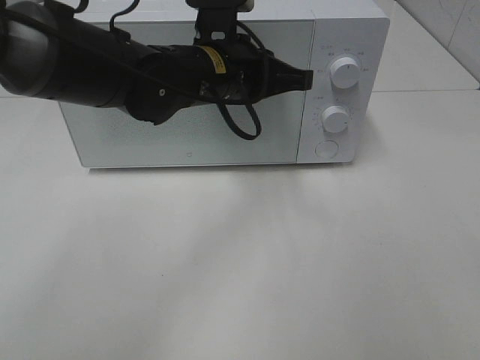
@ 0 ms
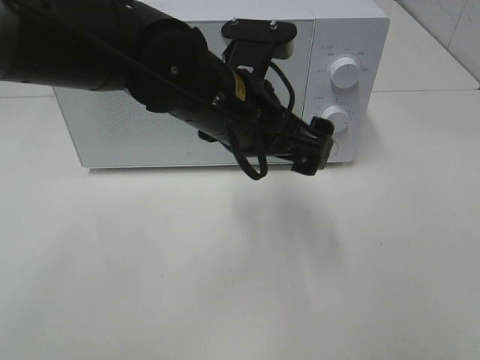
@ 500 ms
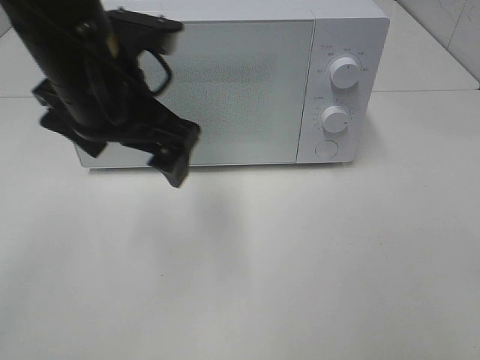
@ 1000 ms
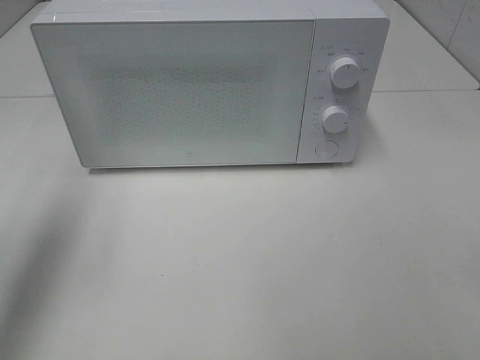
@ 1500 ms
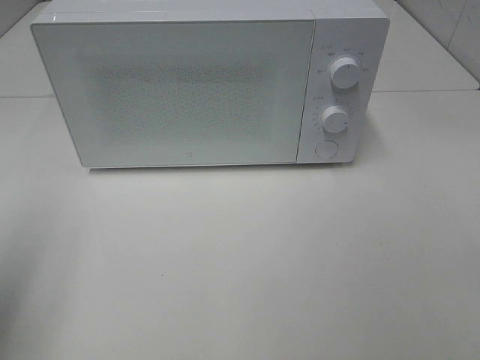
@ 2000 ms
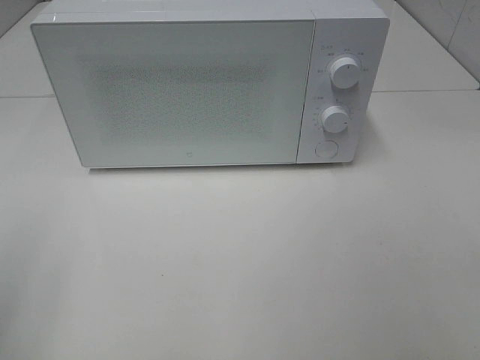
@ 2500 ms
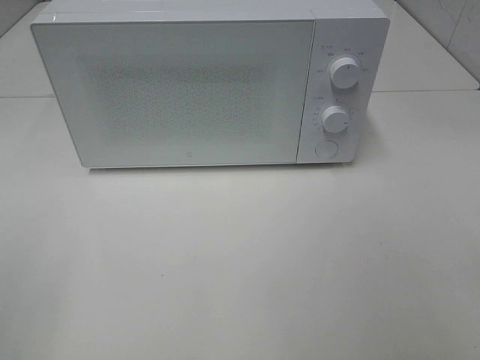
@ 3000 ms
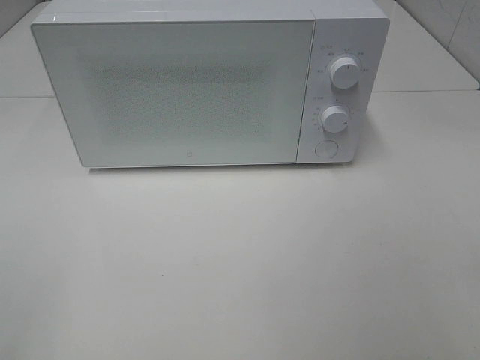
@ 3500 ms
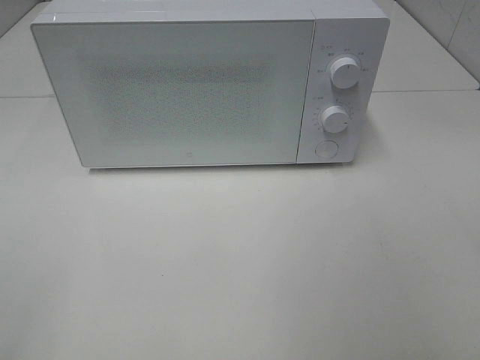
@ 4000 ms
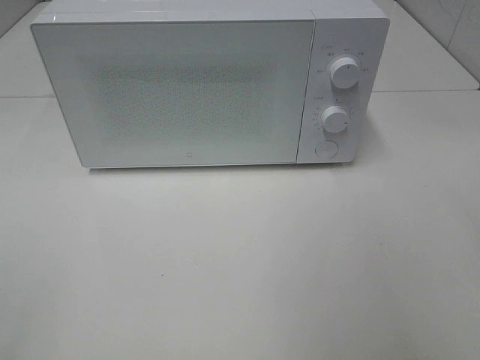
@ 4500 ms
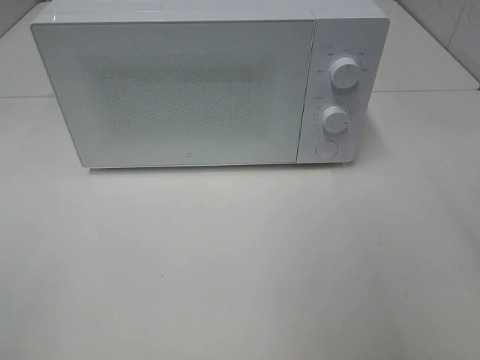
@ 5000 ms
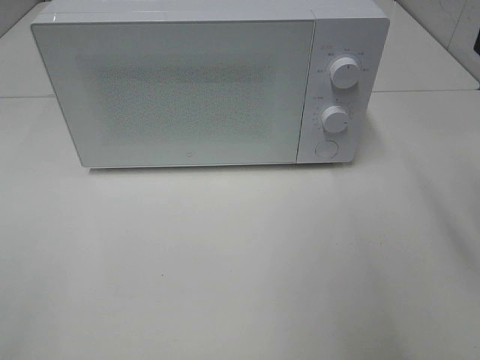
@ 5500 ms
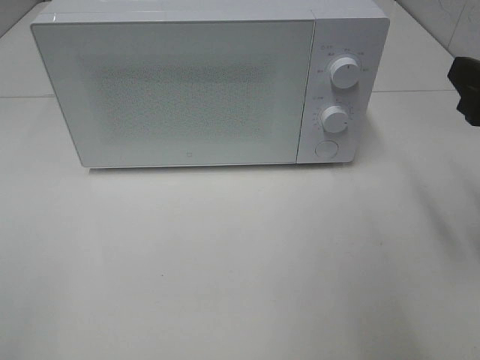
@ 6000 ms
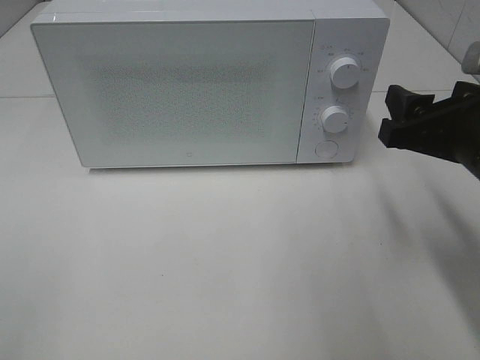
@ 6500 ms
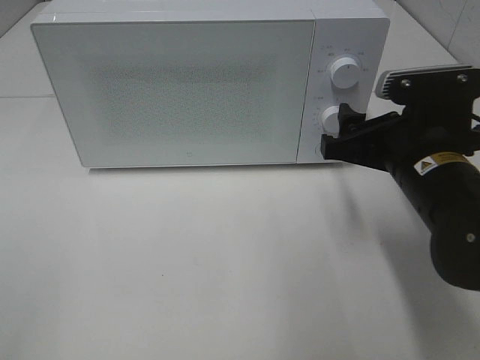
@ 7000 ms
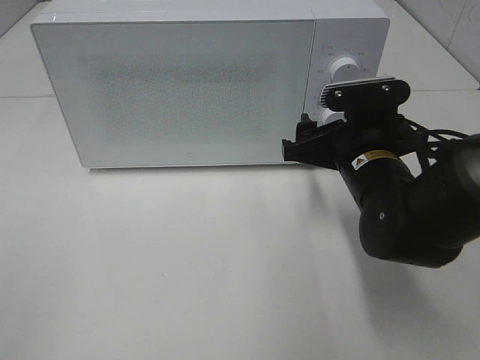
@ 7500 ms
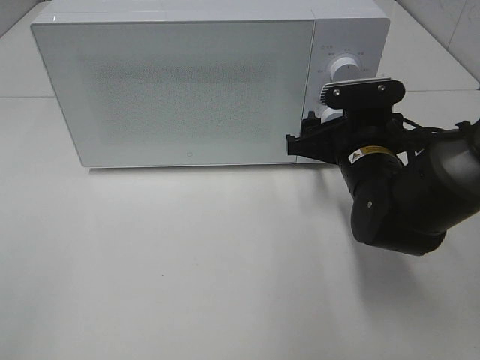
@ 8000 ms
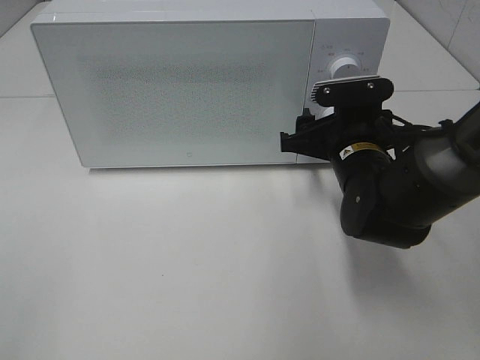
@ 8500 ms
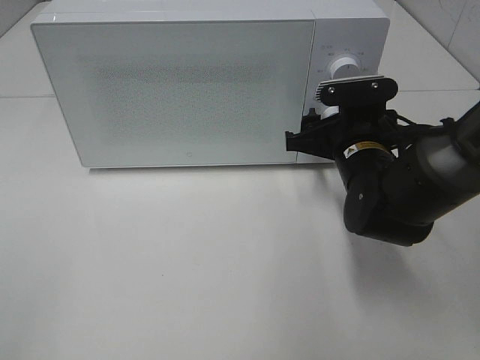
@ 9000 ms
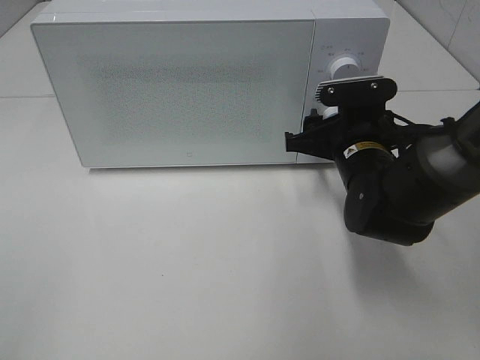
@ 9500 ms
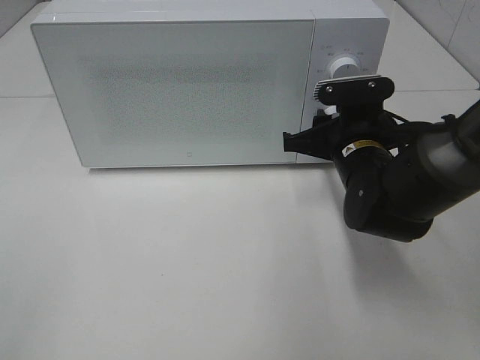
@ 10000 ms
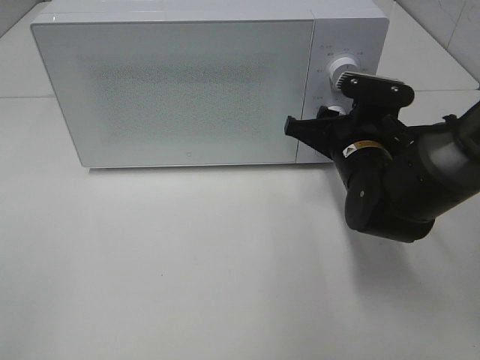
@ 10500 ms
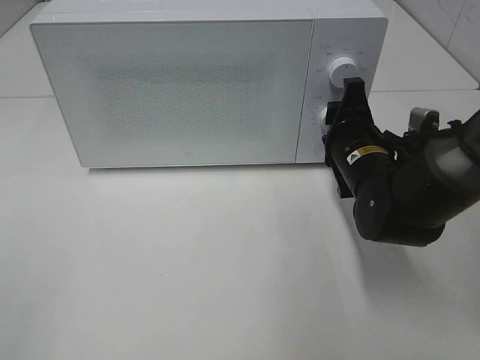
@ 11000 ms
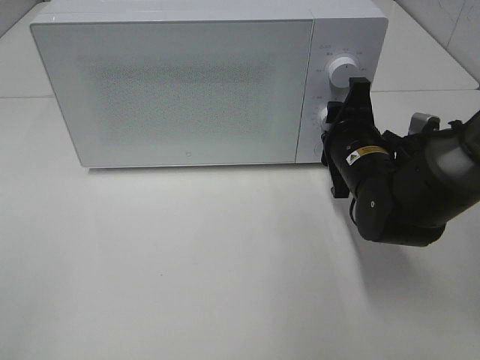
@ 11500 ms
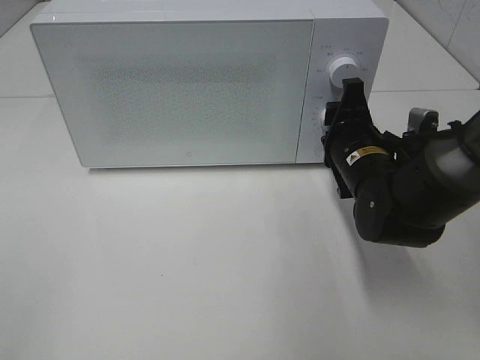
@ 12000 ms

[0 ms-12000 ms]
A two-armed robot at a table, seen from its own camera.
Task of the whole recording: Heat the burger.
0 ms to 2000 ms: The left gripper is displaced to the left and backward by about 35 cm, and opens.
2000 ms to 4000 ms: The left gripper heads backward, covering about 15 cm.
4000 ms to 6000 ms: The right gripper moves forward and downward, some 20 cm.
6000 ms to 8000 ms: The right gripper is displaced downward, to the left and forward by approximately 20 cm.
8000 ms to 10000 ms: The right gripper closes its fingers.

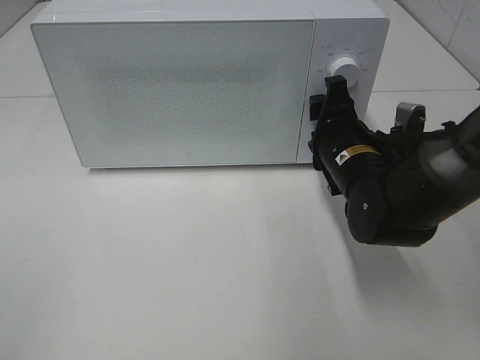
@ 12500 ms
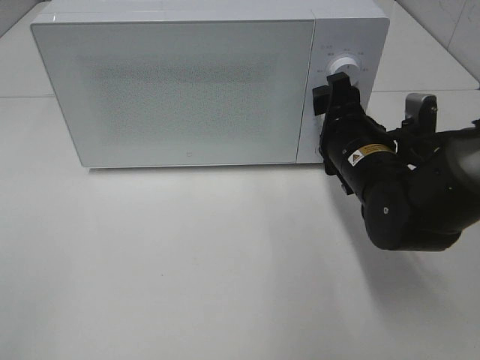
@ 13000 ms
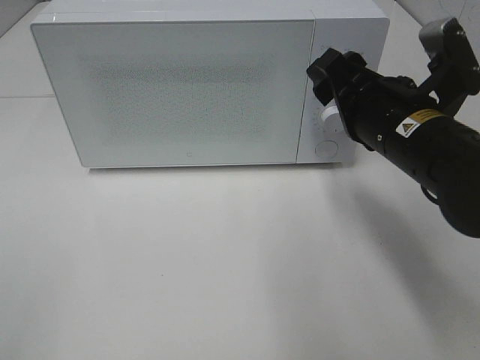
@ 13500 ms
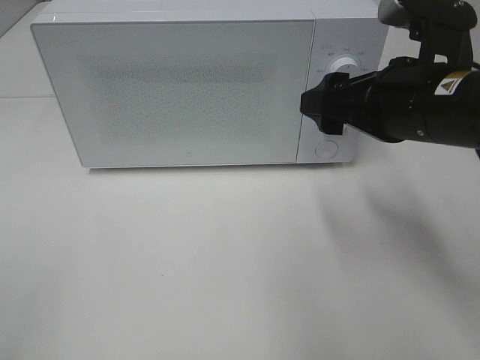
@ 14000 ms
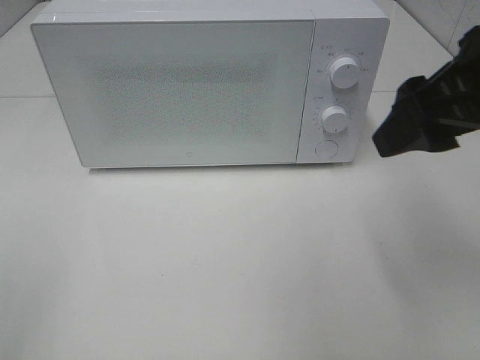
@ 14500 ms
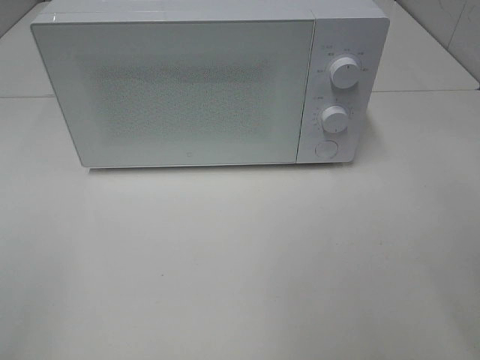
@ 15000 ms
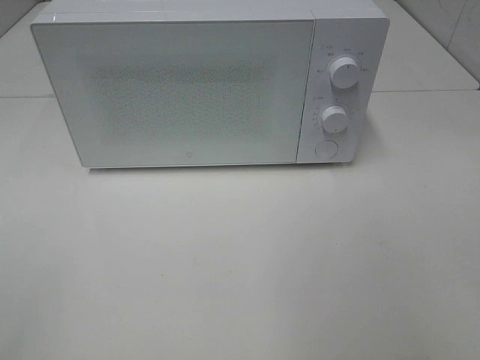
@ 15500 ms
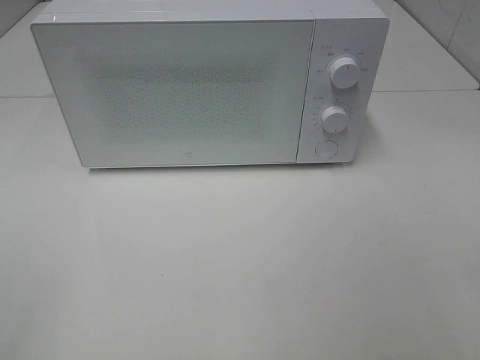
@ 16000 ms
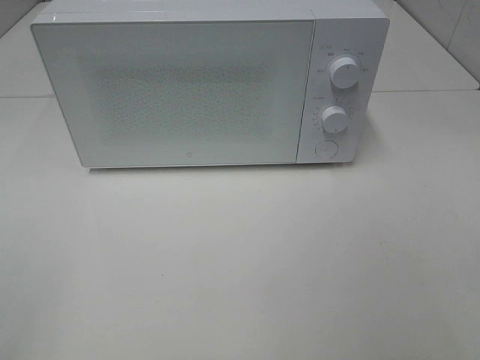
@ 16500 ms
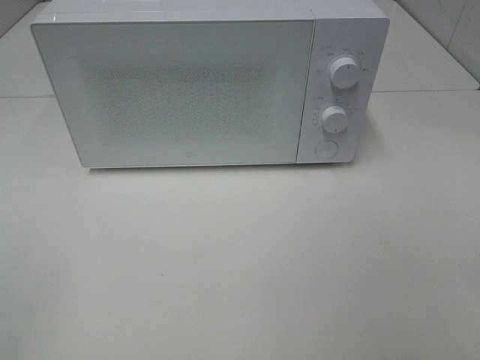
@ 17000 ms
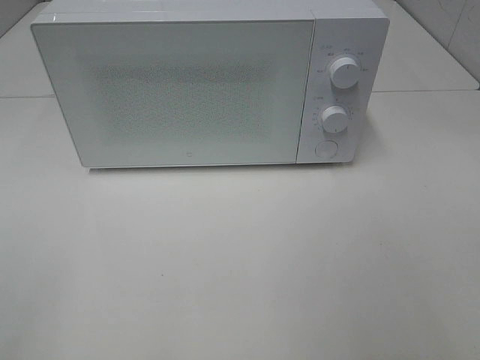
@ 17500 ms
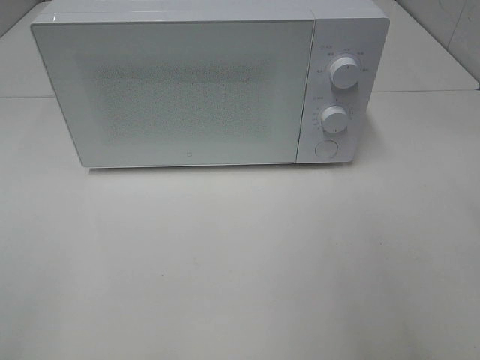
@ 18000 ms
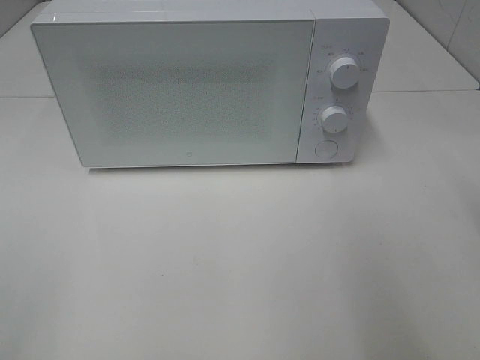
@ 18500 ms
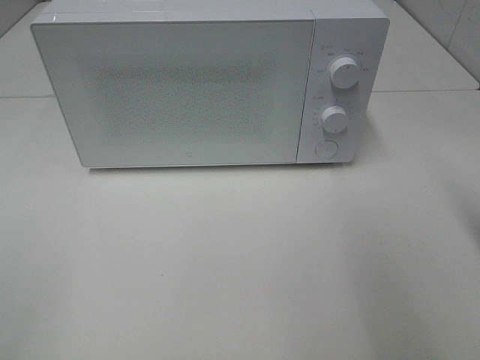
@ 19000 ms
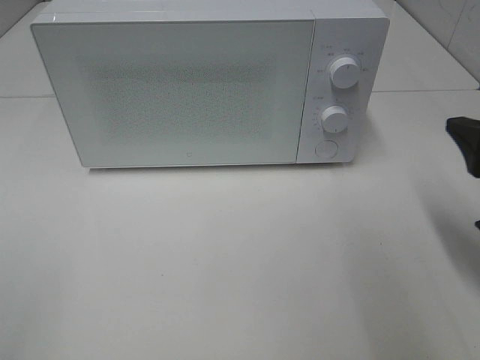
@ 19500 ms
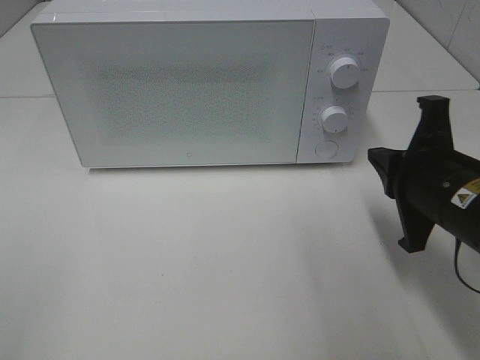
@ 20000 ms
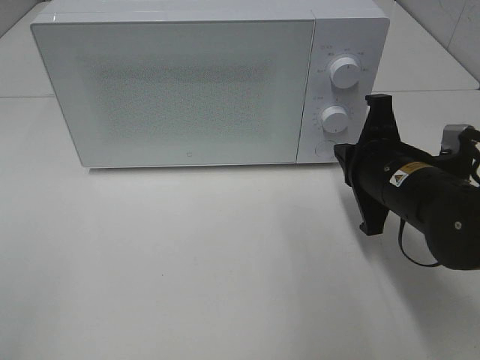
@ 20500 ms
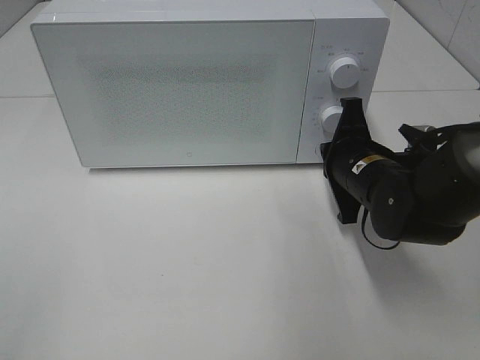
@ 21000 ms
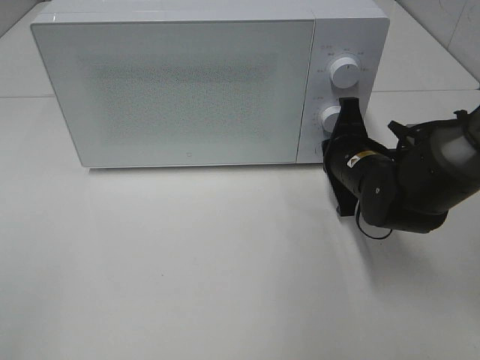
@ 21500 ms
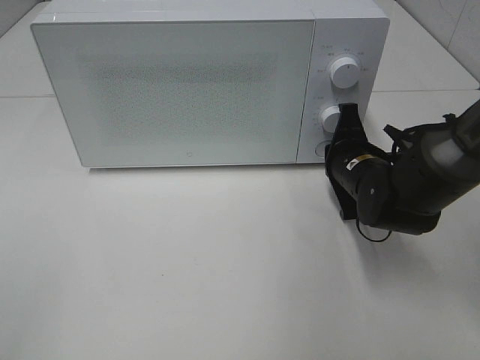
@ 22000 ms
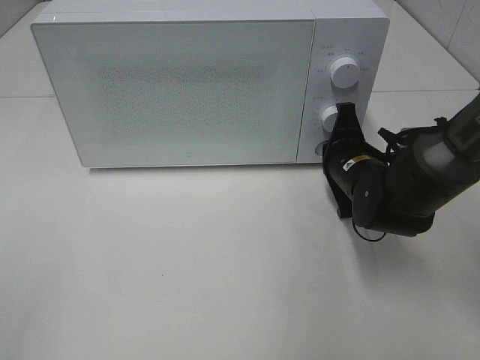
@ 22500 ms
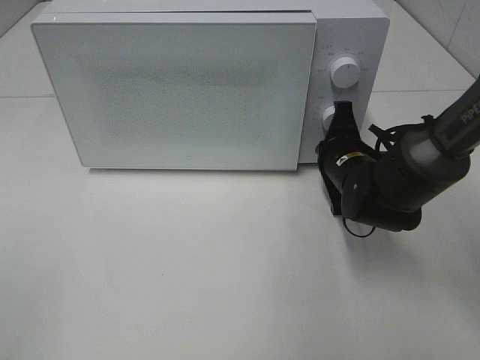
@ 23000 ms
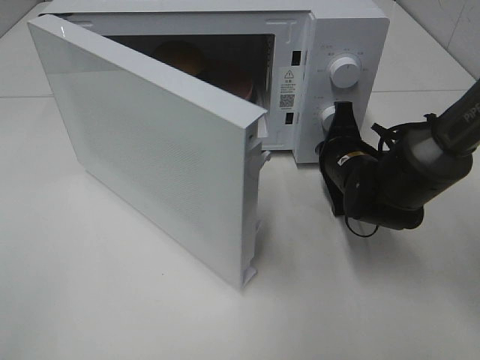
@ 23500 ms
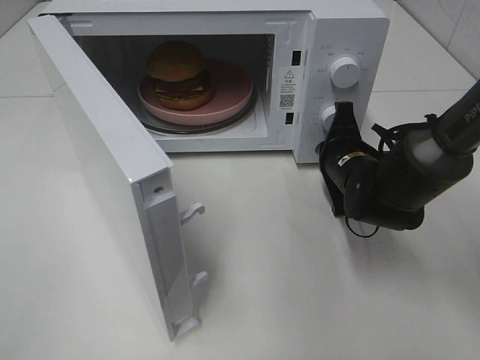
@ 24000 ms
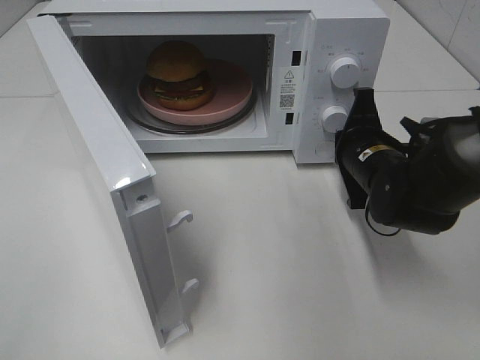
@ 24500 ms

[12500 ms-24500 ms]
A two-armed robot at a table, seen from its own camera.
Task of the whole recording: Heat the burger.
Step, 12500 ms to 24000 ms: Right hand: press the switch.
12500 ms to 14500 ms: The right gripper is displaced upward and backward by approximately 20 cm.
14500 ms to 16500 ms: The right gripper shifts approximately 25 cm backward and to the right.
18500 ms to 20500 ms: The right gripper moves downward, forward and to the left, roughly 20 cm.
20500 ms to 22500 ms: The right gripper heads forward and downward, covering approximately 10 cm.

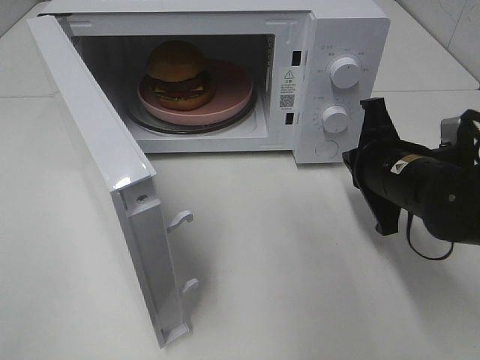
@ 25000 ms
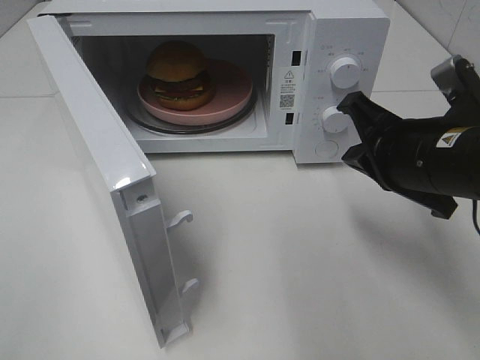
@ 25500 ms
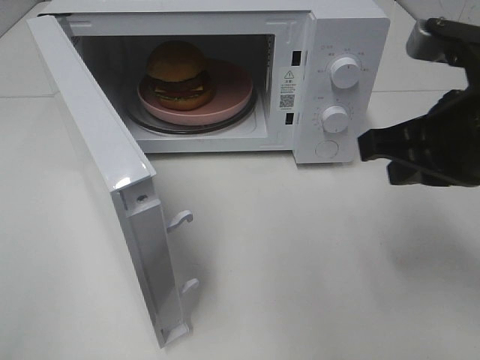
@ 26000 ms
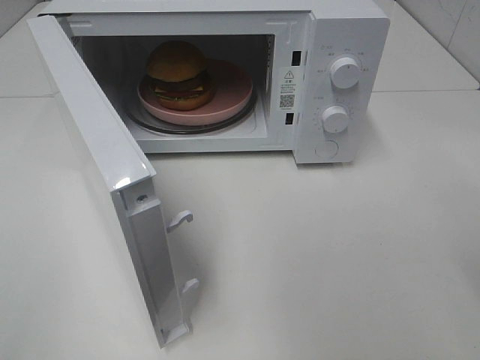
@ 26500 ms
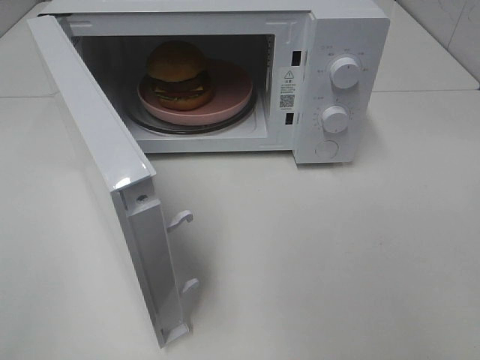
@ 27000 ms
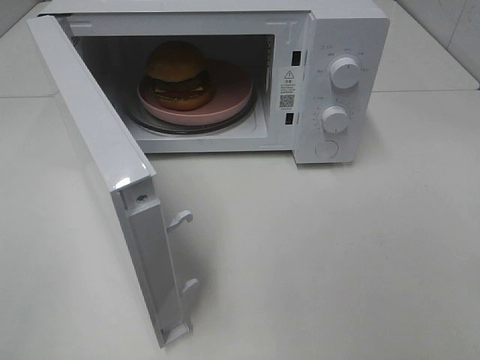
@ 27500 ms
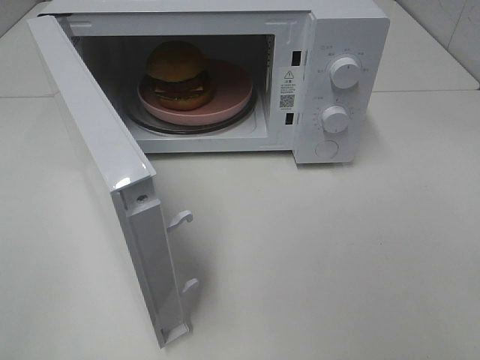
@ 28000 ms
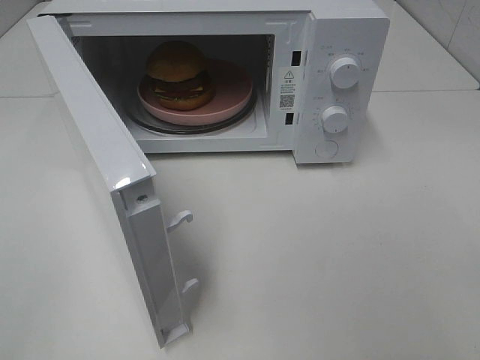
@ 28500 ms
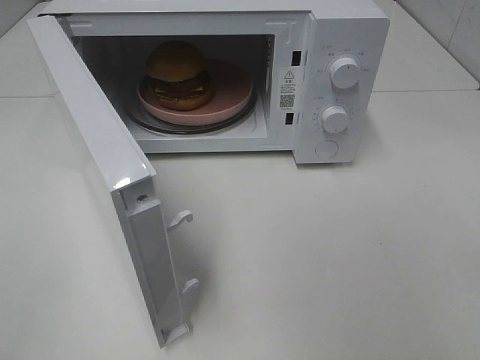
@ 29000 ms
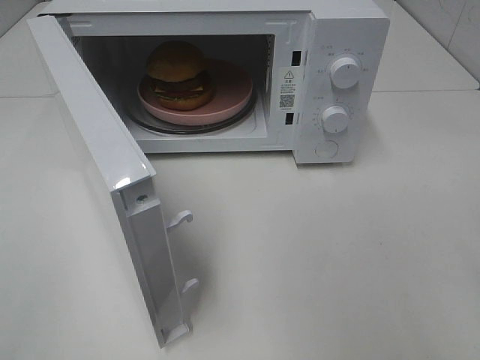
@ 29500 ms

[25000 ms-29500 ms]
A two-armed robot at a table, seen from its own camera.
Task of the whole recording: Heat the burger.
25000 ms to 27000 ms: The right gripper shifts about 30 cm backward, upward and to the right, and opens.
